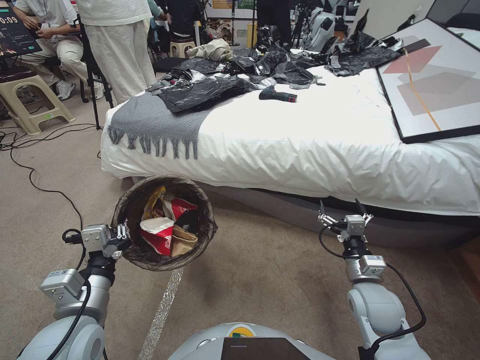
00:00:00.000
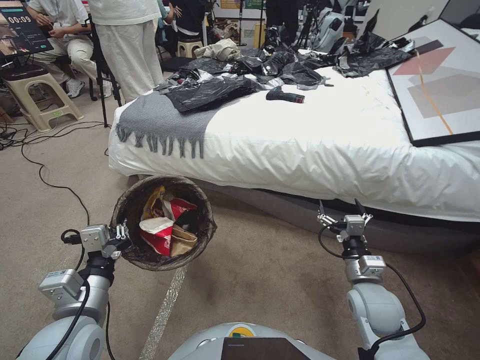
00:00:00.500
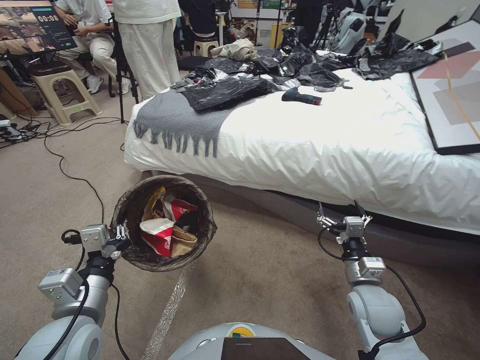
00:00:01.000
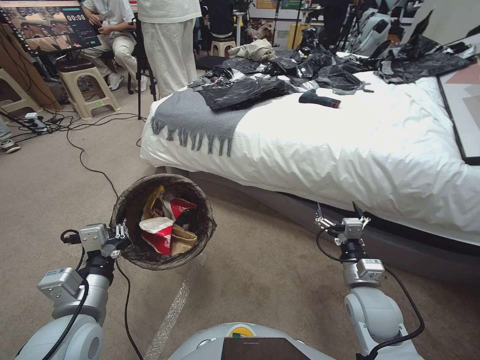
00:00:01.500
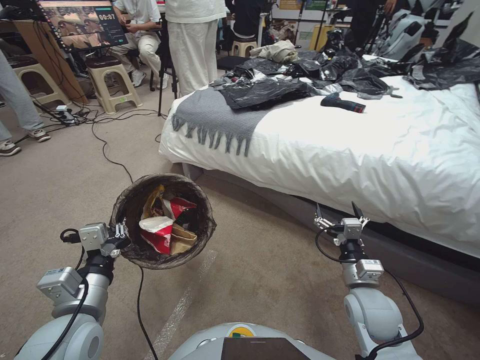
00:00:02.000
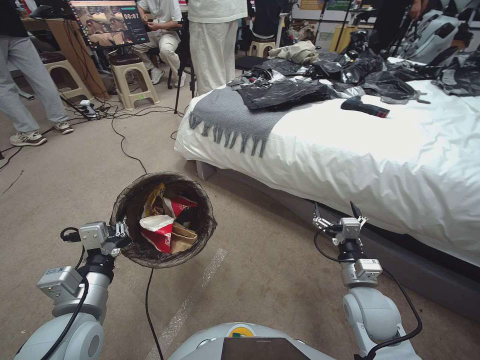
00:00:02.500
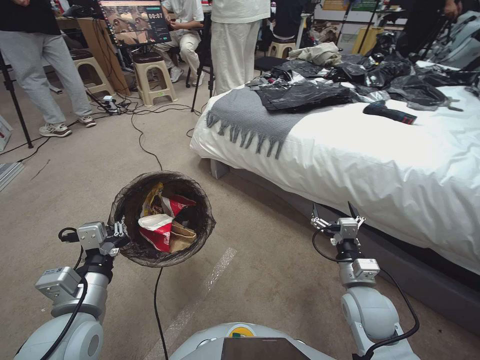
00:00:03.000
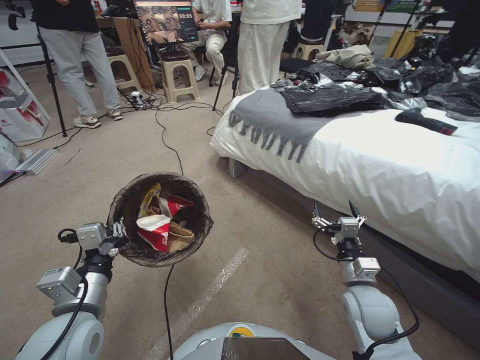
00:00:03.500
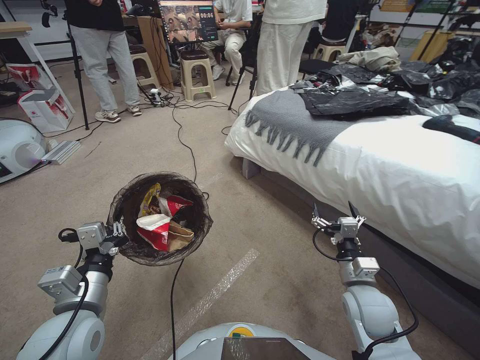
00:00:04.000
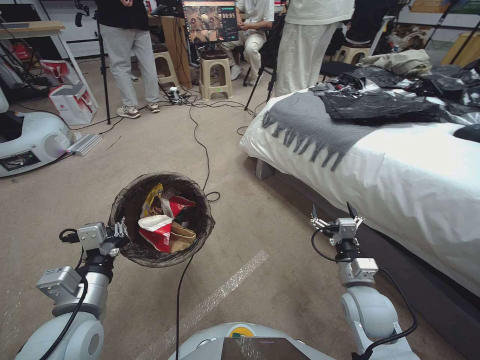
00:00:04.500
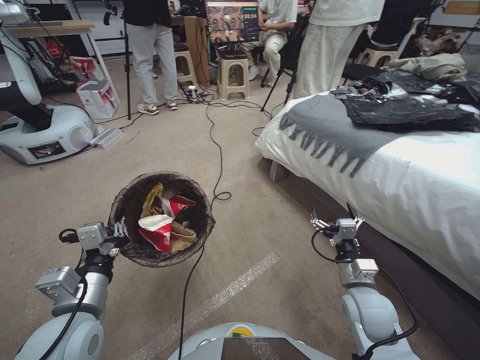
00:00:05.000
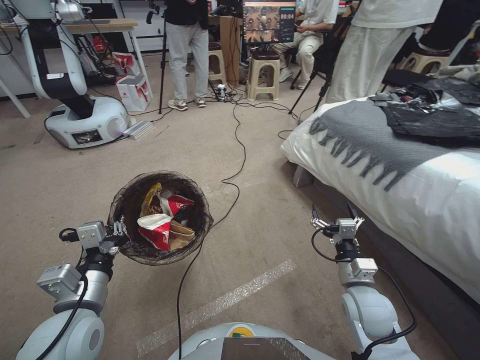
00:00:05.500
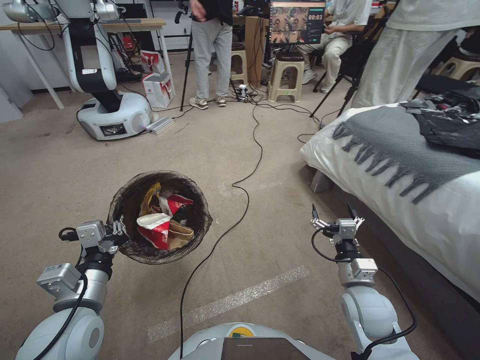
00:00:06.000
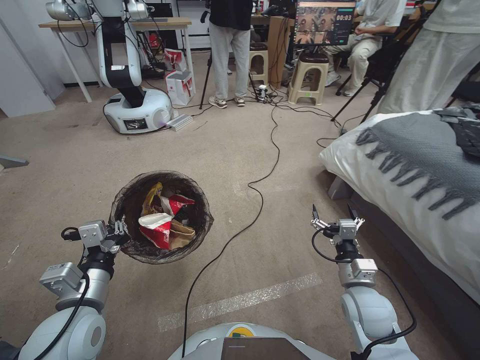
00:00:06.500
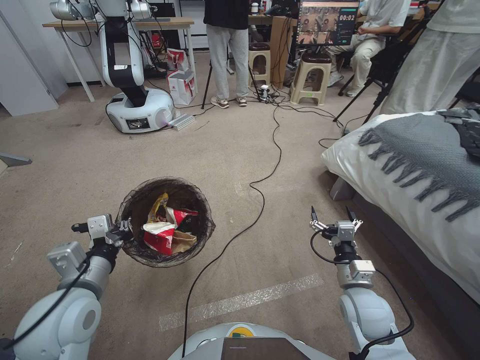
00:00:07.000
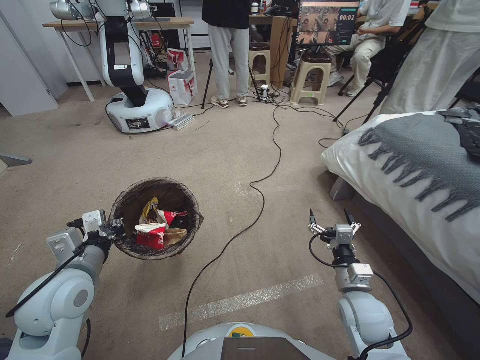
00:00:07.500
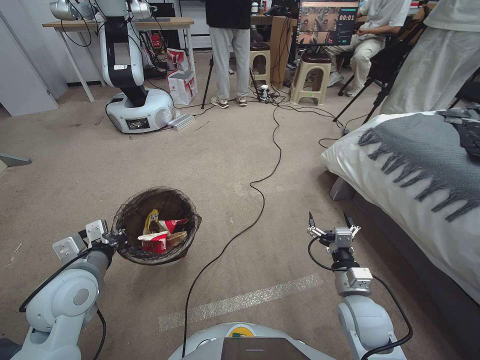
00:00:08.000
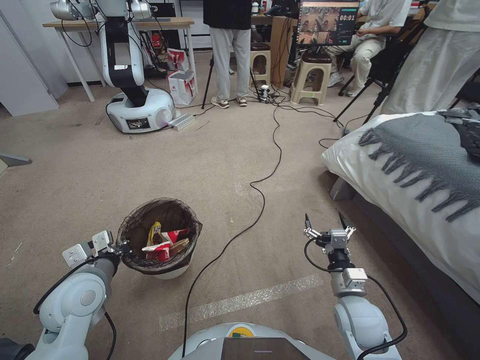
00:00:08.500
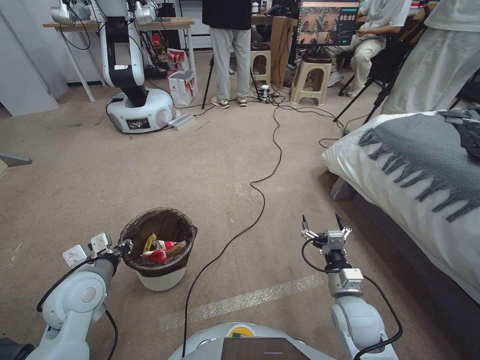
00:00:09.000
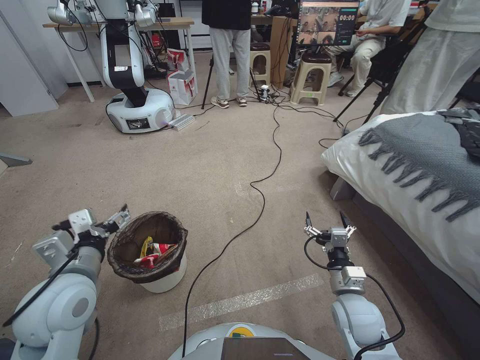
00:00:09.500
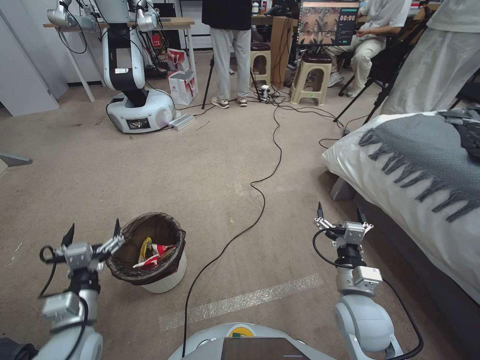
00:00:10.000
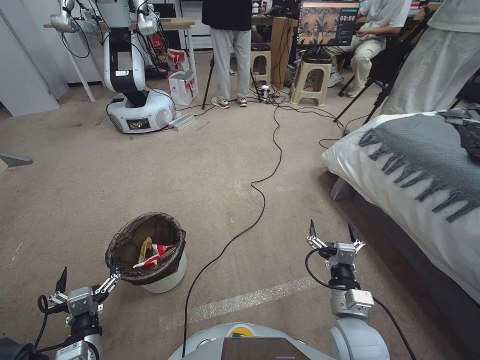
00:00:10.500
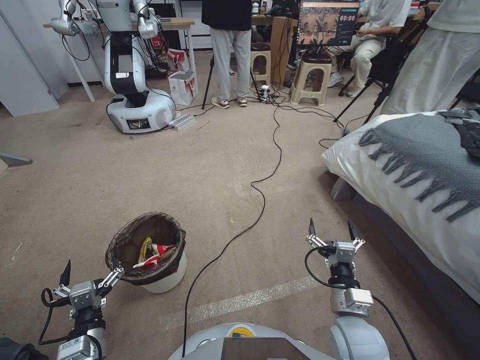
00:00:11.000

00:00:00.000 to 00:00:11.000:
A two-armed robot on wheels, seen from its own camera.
Task of the whole recording: Pick up the trash bin, then pick up the garbage from the floor and place it into the trash bin.
00:00:05.500 to 00:00:07.500: The left gripper goes roughly 5 cm forward.
00:00:07.500 to 00:00:09.000: The left gripper heads downward, covering about 5 cm.
00:00:09.000 to 00:00:11.000: The right gripper ends up approximately 5 cm from where it was; the left gripper travels backward and downward by roughly 20 cm, and opens up.

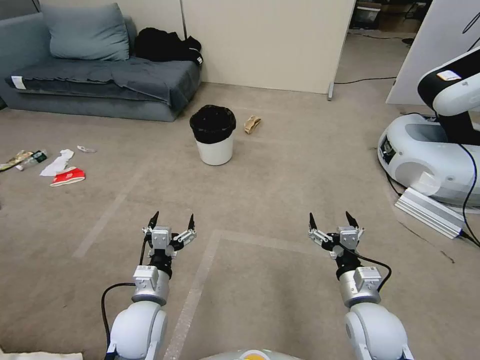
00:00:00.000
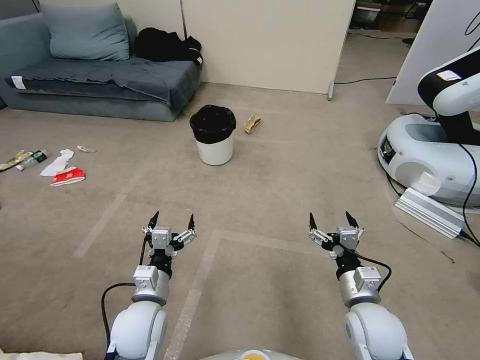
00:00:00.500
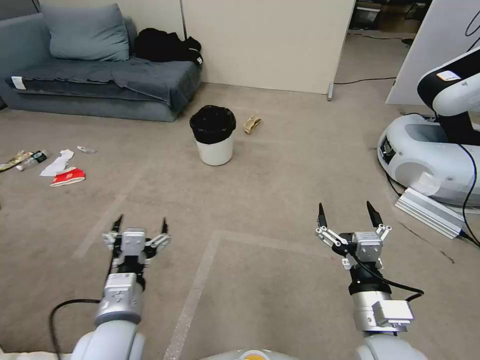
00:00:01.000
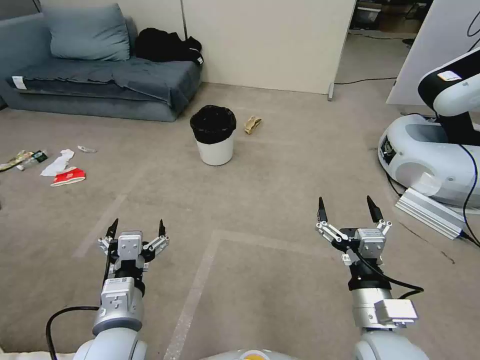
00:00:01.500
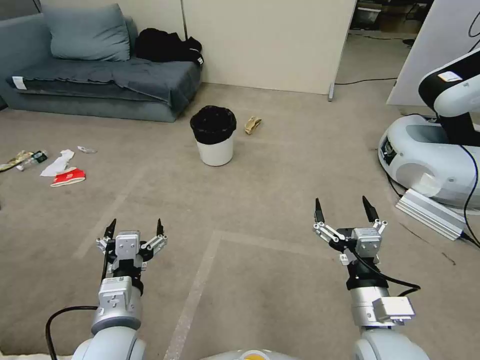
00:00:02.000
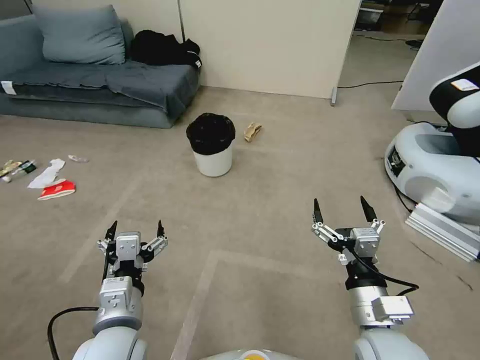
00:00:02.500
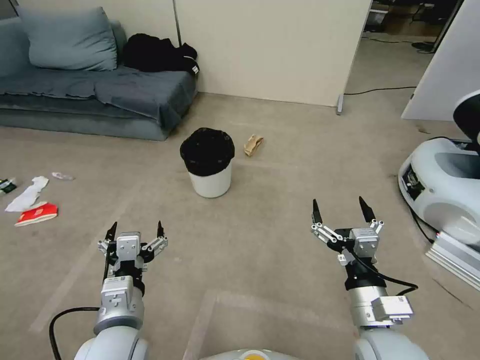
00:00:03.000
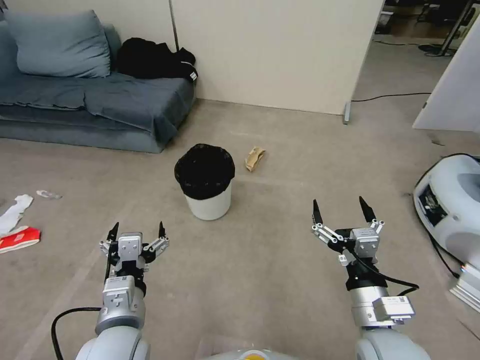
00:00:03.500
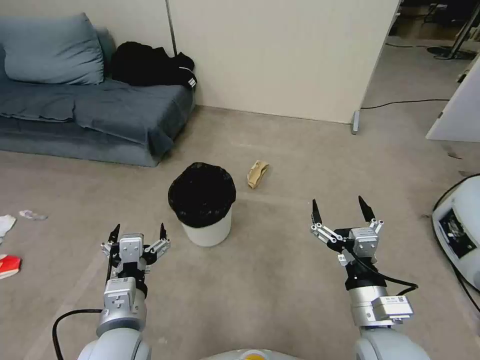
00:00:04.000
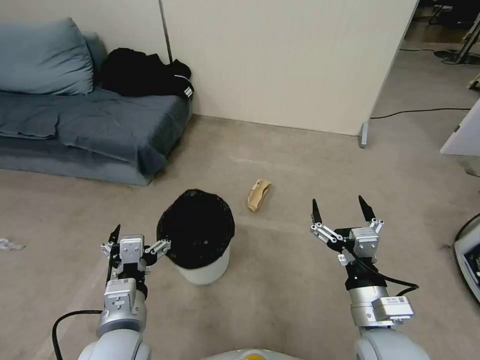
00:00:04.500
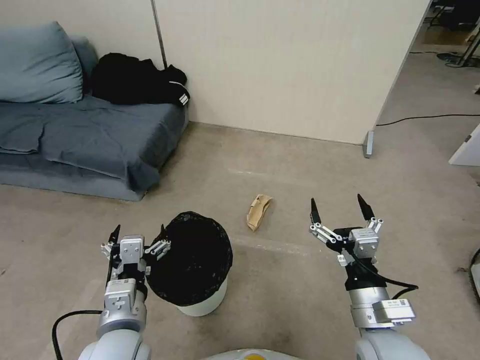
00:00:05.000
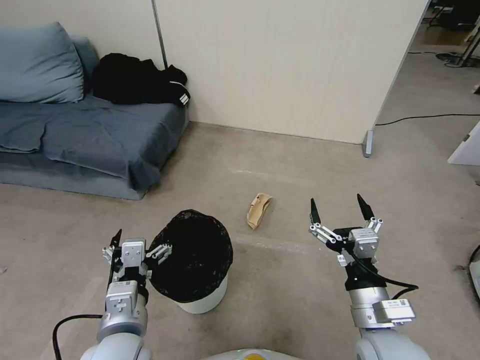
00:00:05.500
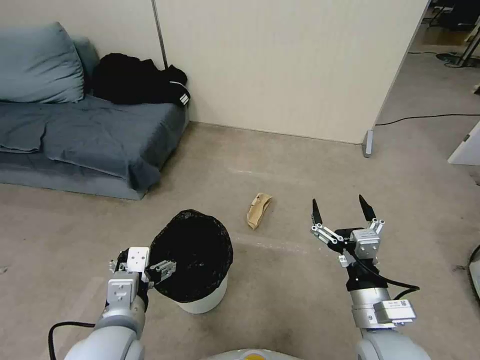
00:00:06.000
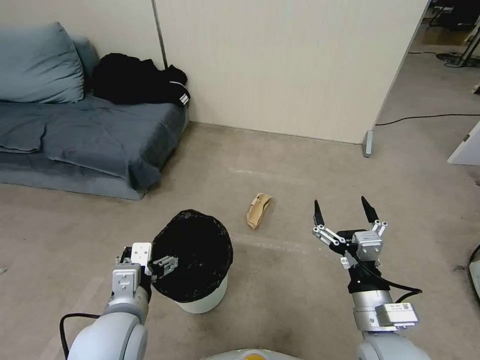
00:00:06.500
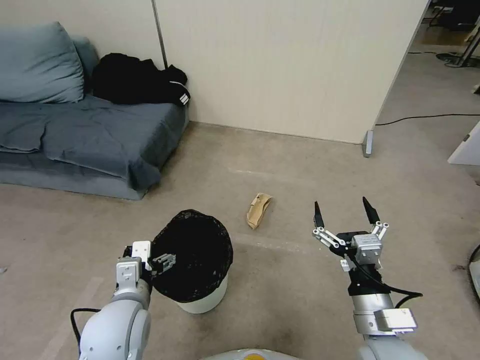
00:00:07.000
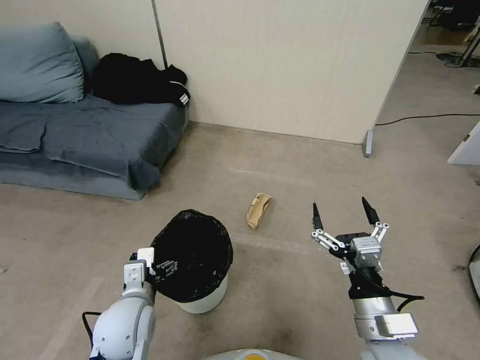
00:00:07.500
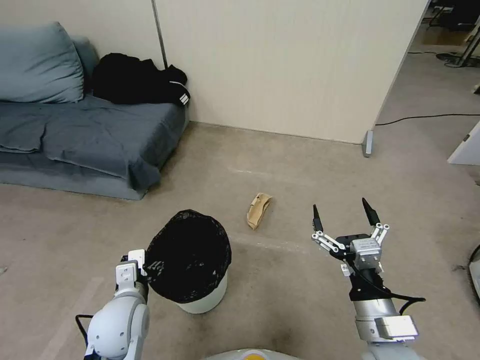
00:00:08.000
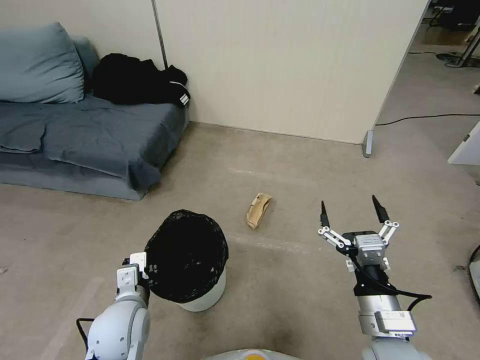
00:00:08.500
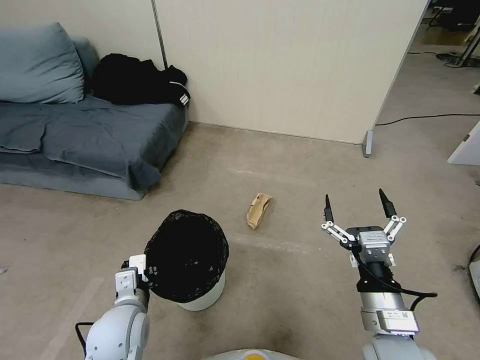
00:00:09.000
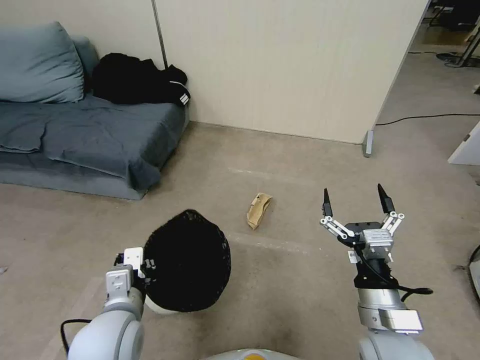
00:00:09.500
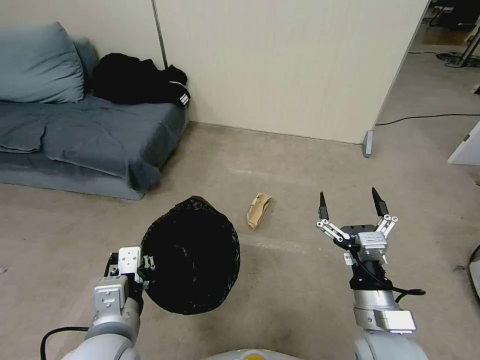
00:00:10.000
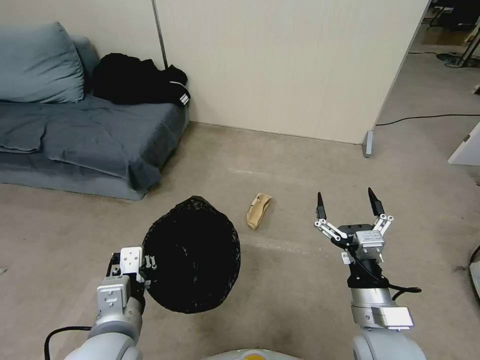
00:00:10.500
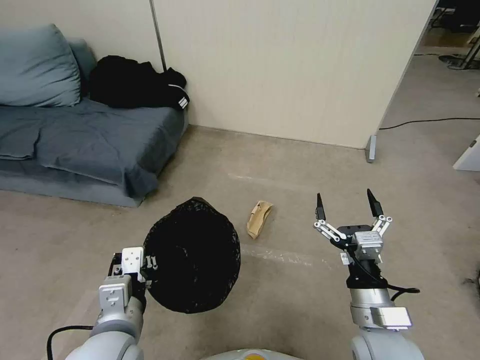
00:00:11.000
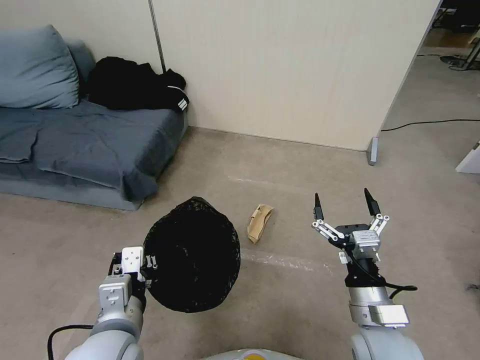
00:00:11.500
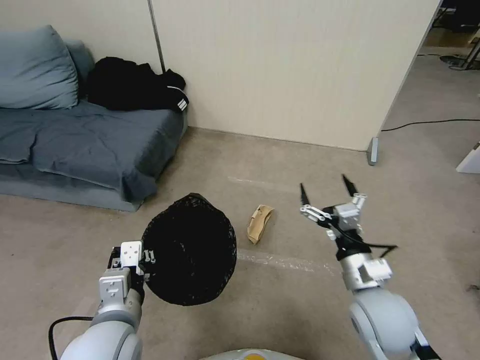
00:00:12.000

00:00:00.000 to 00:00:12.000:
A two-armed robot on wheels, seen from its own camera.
Task of the whole recording: Pick up the trash bin, then pick up the garbage from the floor and place it into the trash bin.
00:00:06.000 to 00:00:08.000: The left gripper heads downward and forward, covering some 10 cm.
00:00:08.000 to 00:00:10.000: The left gripper goes about 15 cm upward and backward, and closes its fingers.
00:00:10.000 to 00:00:12.000: The right gripper moves forward, roughly 5 cm.

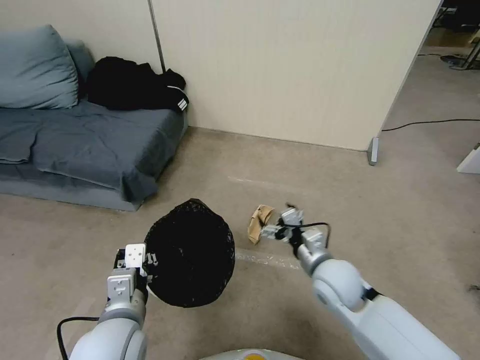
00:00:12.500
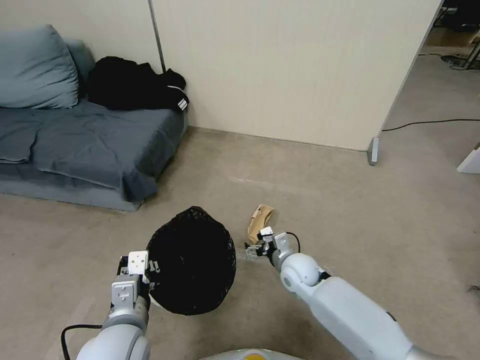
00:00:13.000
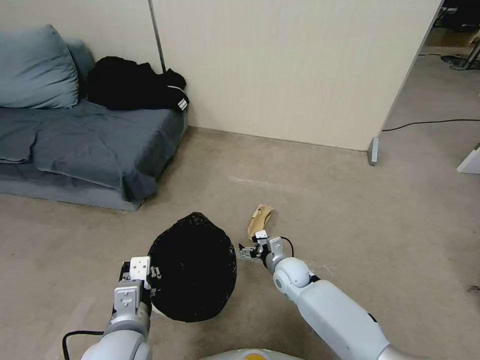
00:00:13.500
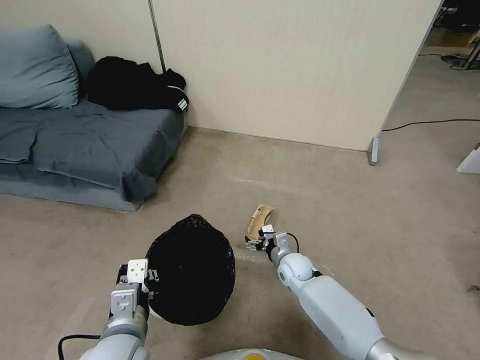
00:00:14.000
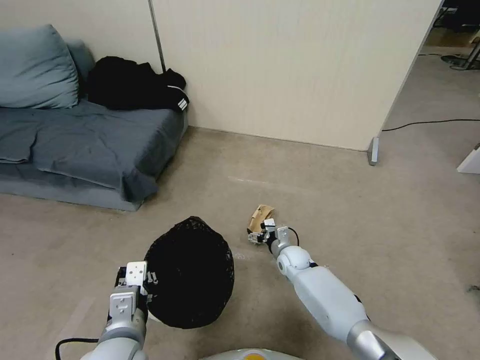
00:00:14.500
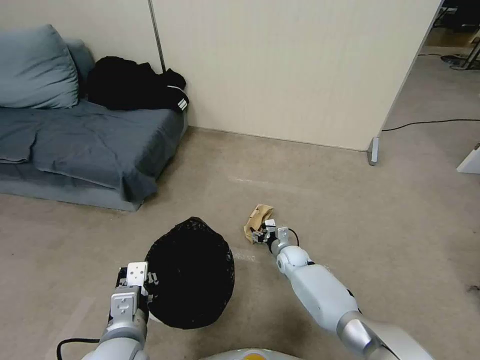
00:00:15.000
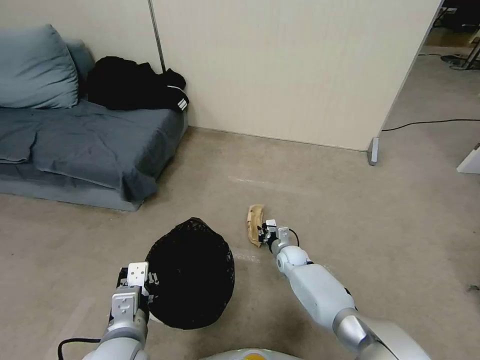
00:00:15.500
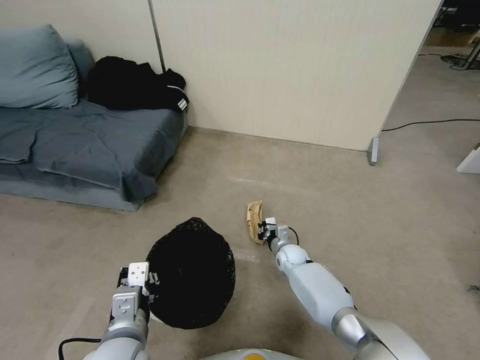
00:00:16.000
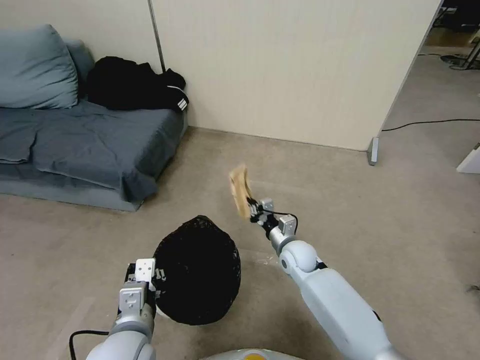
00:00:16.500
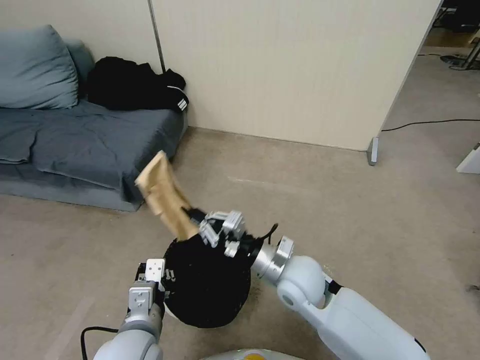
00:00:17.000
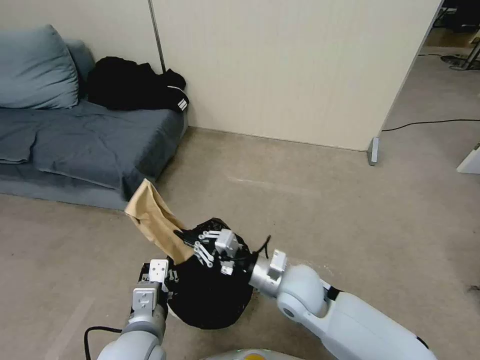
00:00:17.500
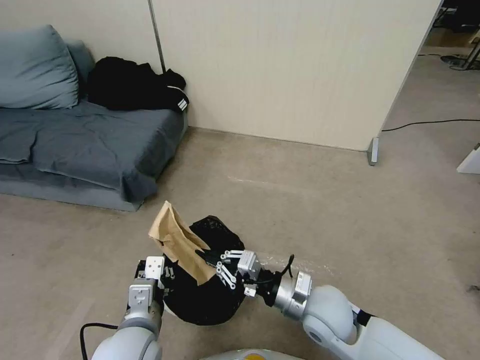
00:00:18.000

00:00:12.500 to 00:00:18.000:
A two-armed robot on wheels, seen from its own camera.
Task of the whole recording: Pick up the trash bin, then pick up the garbage from the floor and place it into the trash bin.
00:00:12.500 to 00:00:14.500: The right gripper shifts roughly 25 cm downward and forward.
00:00:14.500 to 00:00:16.000: The right gripper closes.
00:00:16.000 to 00:00:18.000: The right gripper shifts some 30 cm upward and backward.
